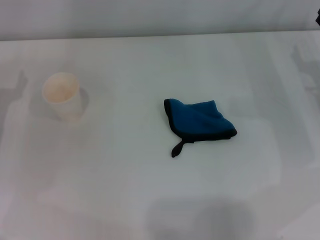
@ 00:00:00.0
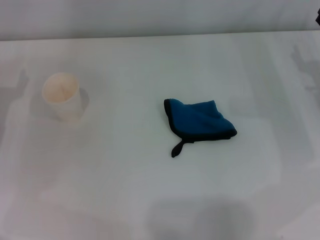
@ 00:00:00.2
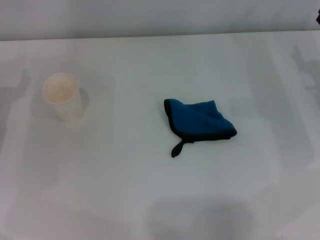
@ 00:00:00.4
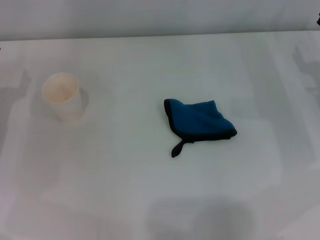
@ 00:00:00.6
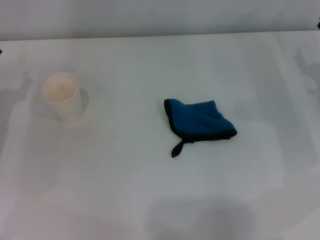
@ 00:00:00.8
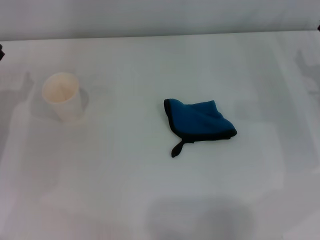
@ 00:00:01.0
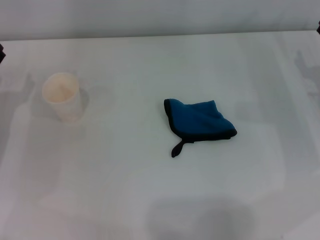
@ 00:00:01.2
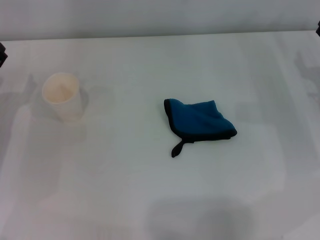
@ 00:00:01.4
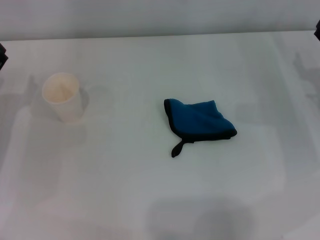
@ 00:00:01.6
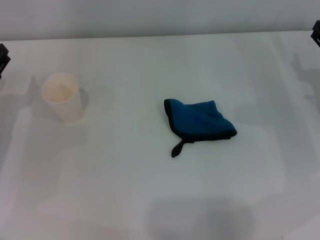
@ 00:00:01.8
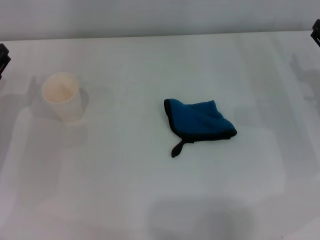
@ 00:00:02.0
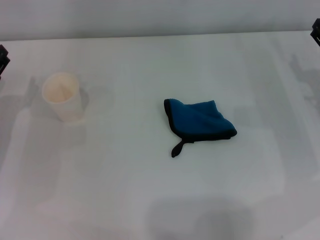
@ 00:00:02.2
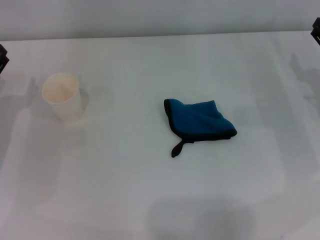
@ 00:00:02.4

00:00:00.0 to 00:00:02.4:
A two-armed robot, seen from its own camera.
00:00:00.0 to 00:00:01.2: The two grippers keep their place.
00:00:01.2 to 00:00:02.4: Neither gripper changes place.
